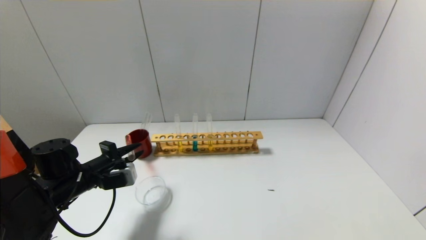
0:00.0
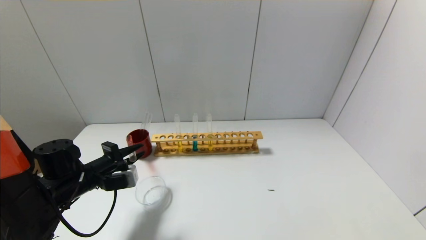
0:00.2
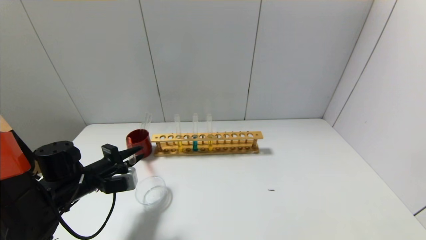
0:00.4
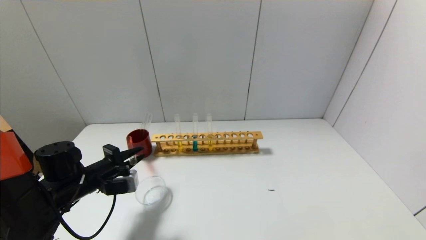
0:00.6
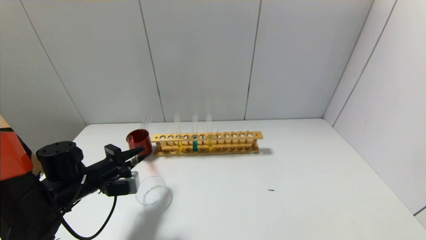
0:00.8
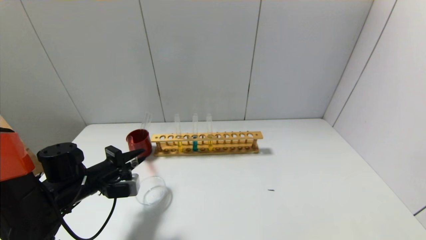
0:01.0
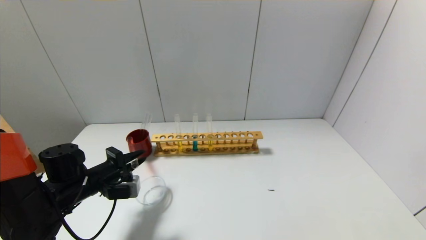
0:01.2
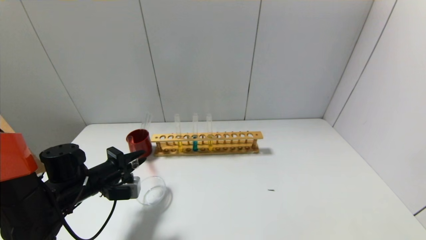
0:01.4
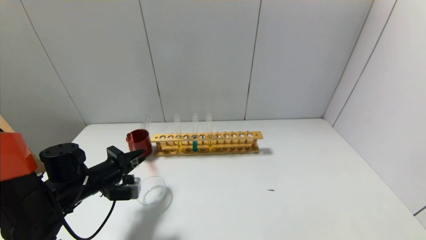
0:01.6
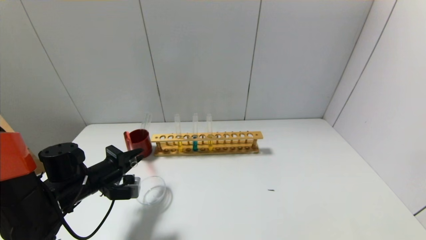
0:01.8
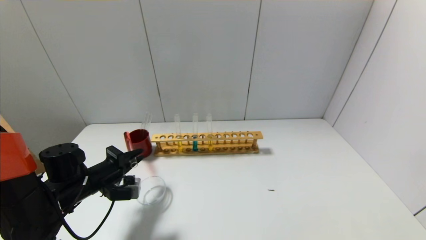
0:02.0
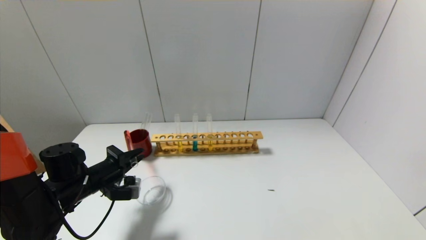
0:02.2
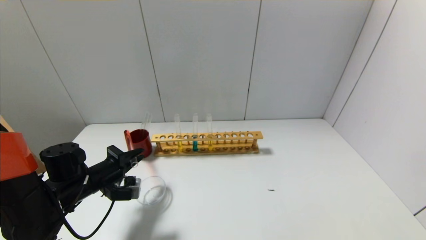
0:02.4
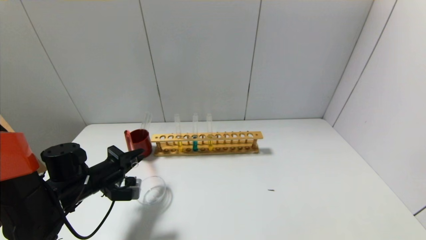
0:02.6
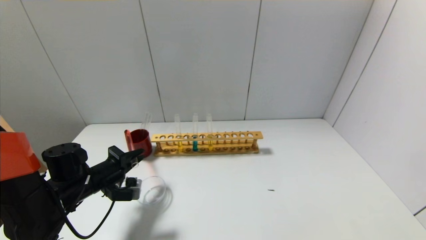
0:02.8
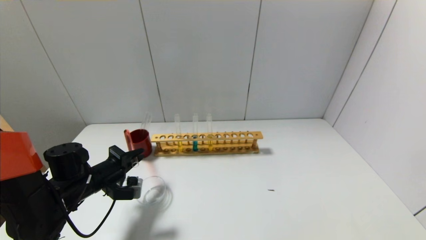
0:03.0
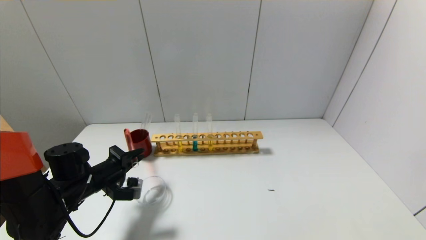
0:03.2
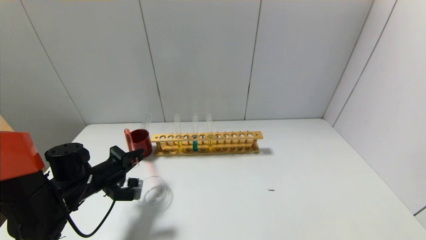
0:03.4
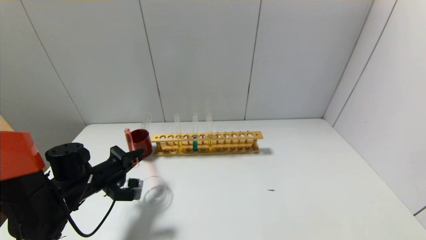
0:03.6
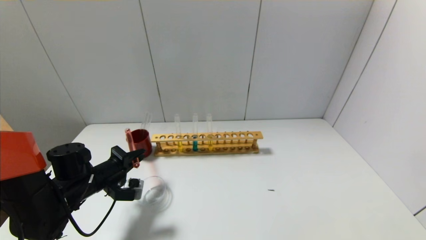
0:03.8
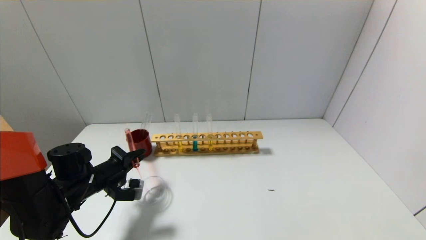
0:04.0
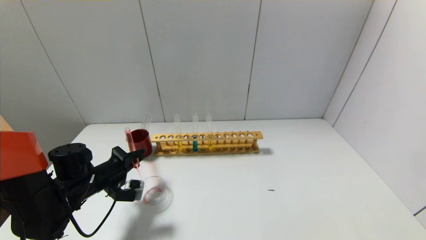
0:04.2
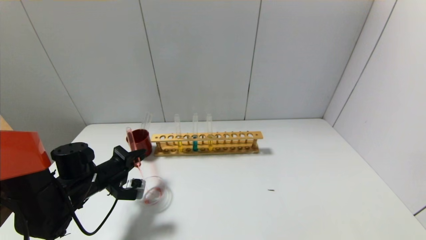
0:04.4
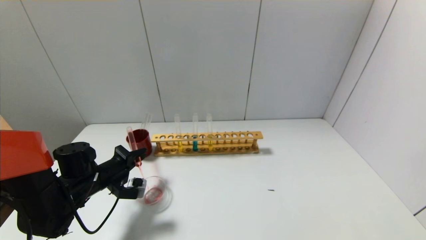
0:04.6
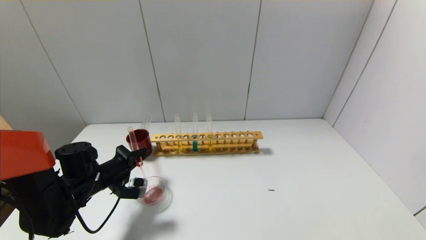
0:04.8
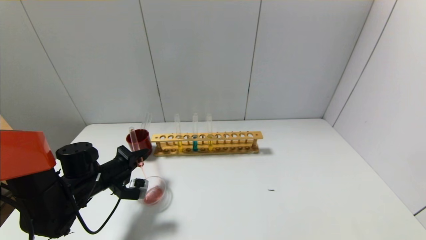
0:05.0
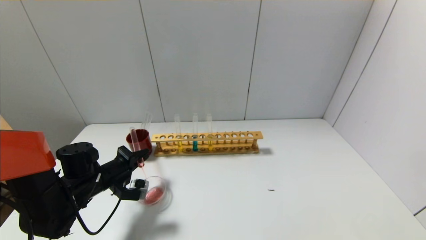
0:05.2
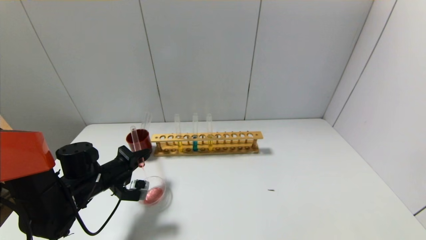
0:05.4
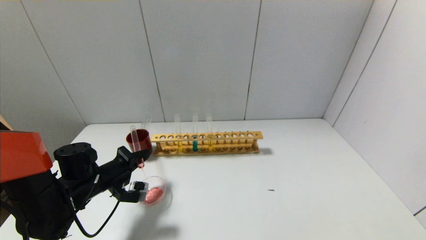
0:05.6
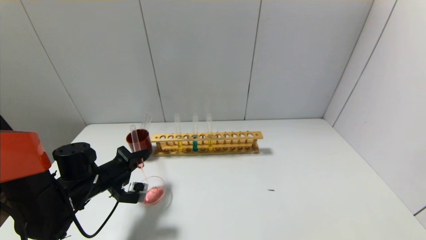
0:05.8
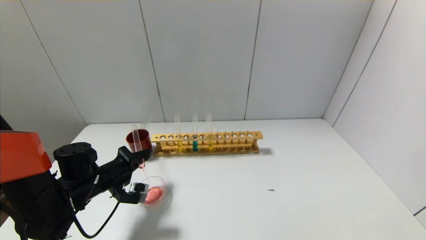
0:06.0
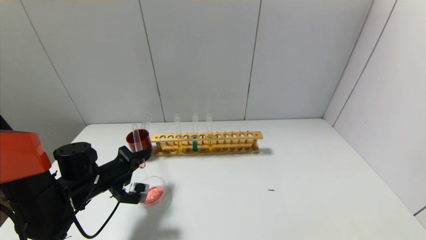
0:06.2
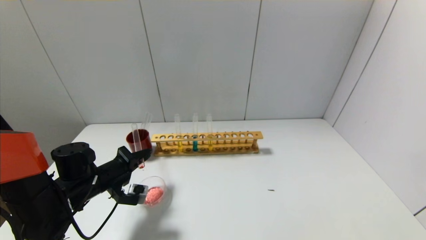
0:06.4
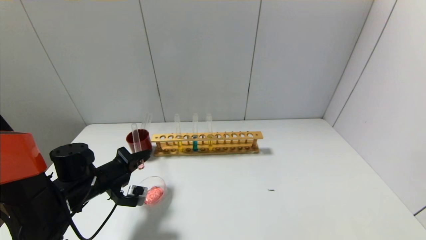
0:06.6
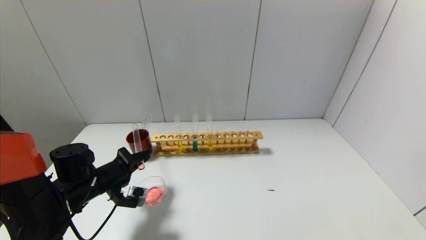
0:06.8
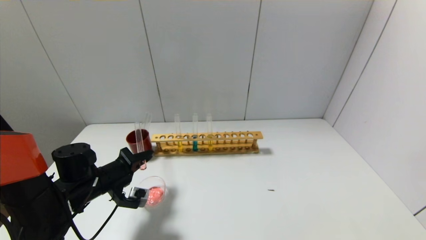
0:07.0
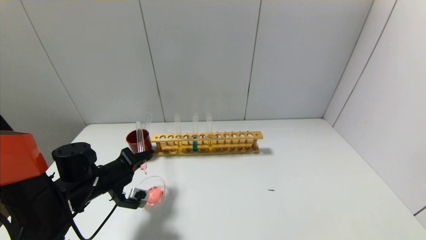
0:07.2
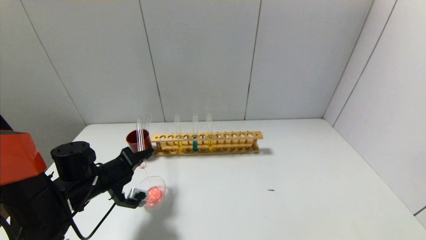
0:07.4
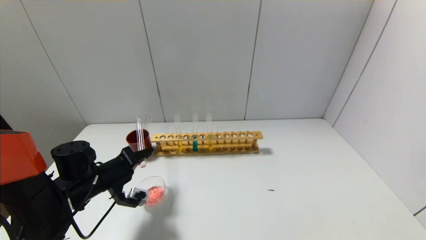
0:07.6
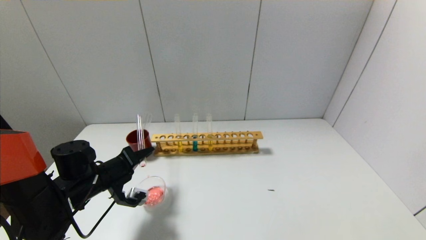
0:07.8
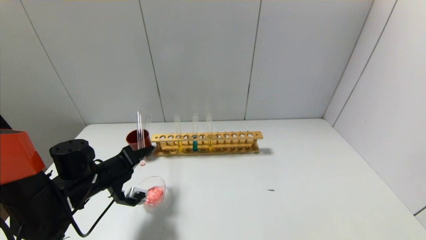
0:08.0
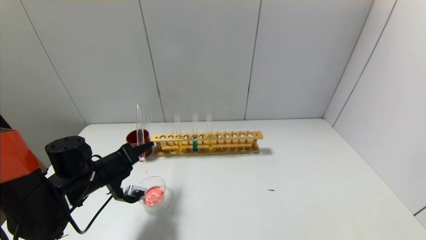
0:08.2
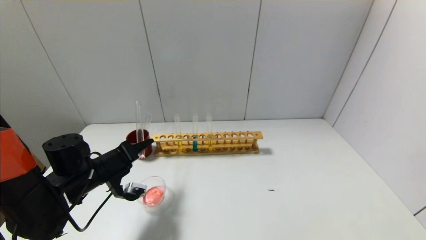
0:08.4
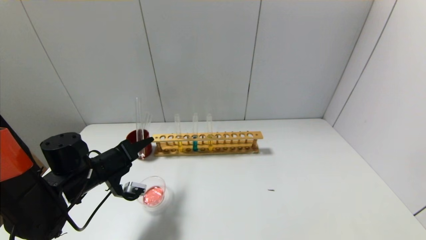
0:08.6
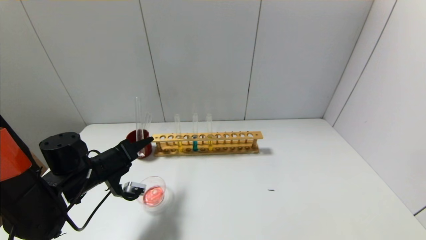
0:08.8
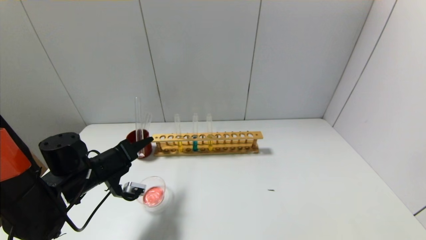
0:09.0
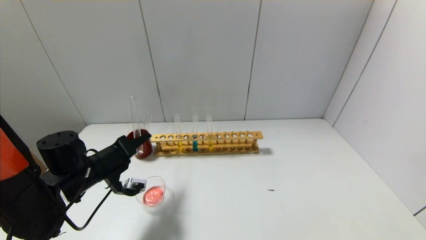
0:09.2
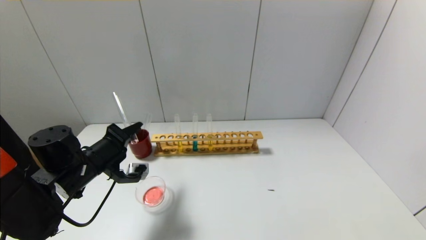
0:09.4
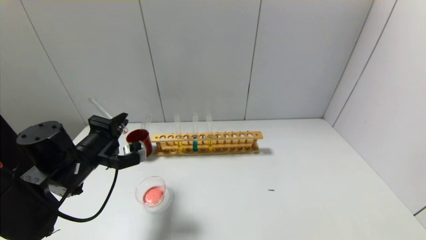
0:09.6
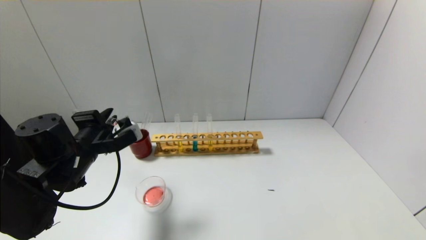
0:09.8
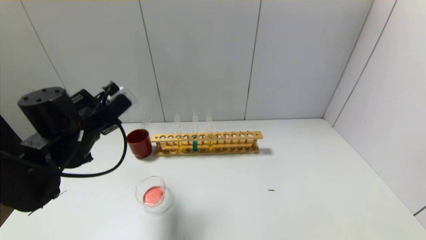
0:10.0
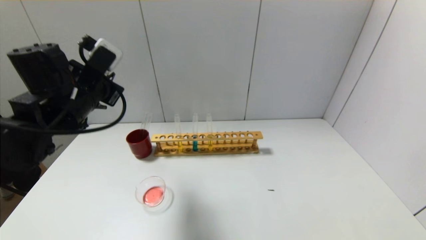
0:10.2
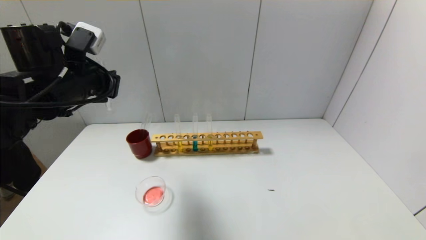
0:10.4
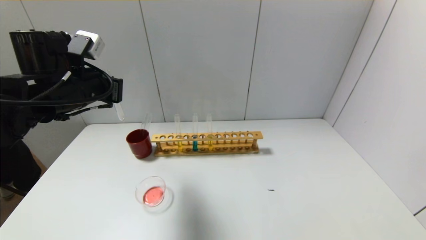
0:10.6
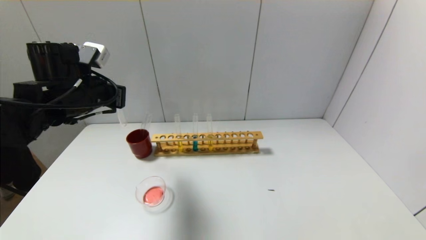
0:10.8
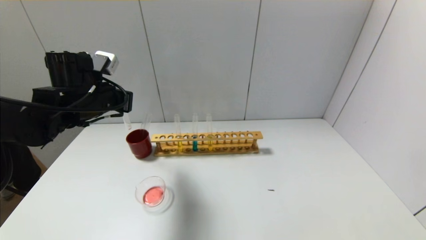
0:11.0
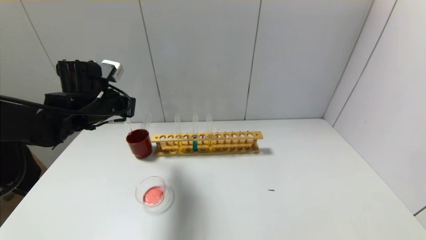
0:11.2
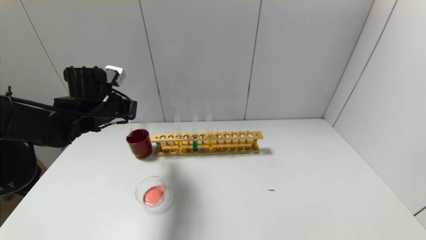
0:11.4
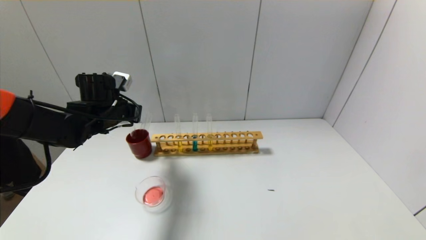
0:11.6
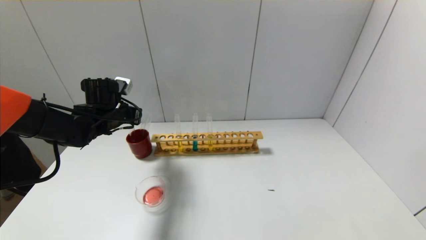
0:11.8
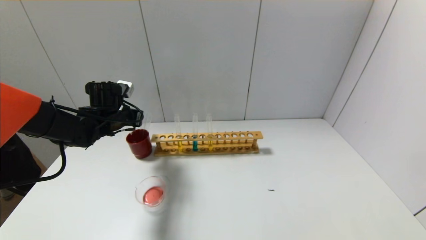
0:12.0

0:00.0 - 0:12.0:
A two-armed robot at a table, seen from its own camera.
Step, 0:00.0 - 0:09.4: Pour the red reagent into the graduated cylinder with the left gripper.
0:00.0 - 0:01.6: The grippers make only small movements.
0:01.6 - 0:04.4: The grippers make only small movements.
0:04.4 - 0:06.0: The two grippers keep their place.
0:06.0 - 0:07.6: The grippers stay close to where they were, moving slightly.
0:07.6 - 0:09.0: There are only small adjustments of the grippers.
0:09.0 - 0:10.4: The left gripper goes some 15 cm upward.
0:10.4 - 0:12.0: The left gripper heads downward and forward, covering some 15 cm.

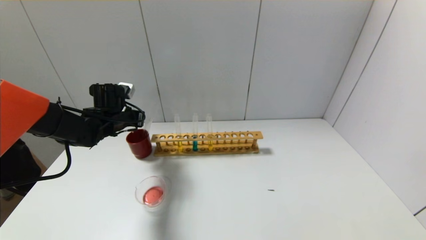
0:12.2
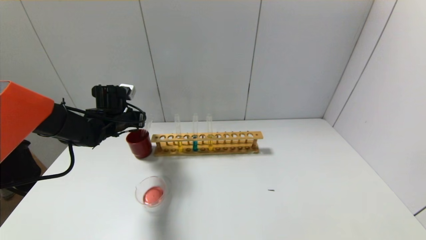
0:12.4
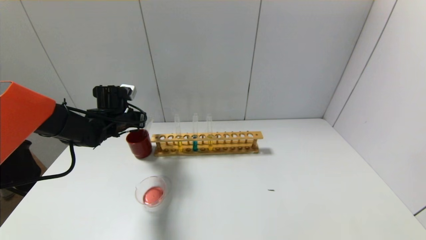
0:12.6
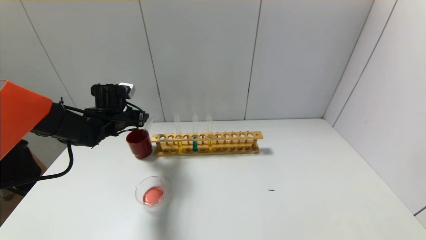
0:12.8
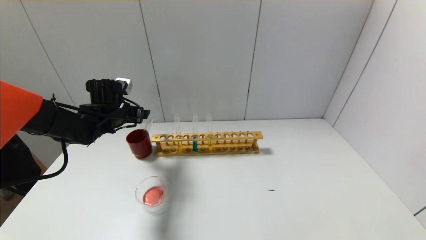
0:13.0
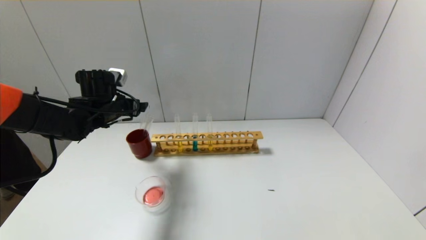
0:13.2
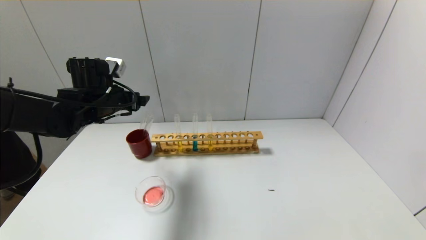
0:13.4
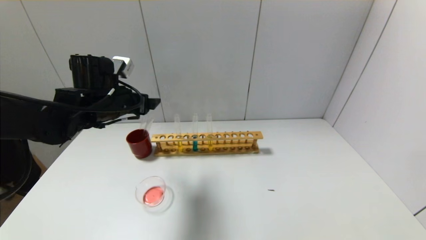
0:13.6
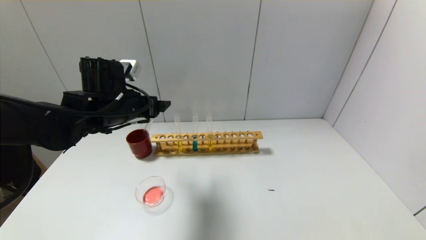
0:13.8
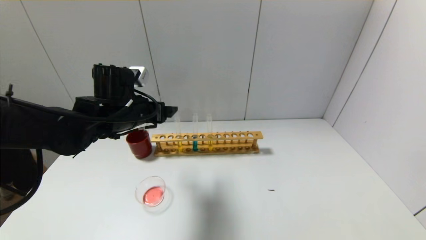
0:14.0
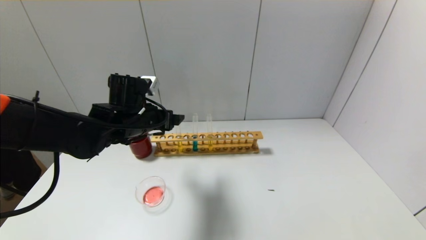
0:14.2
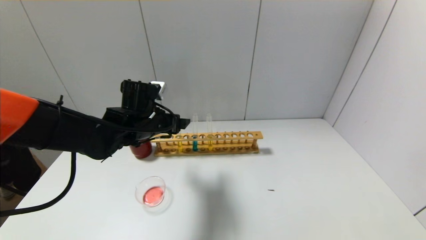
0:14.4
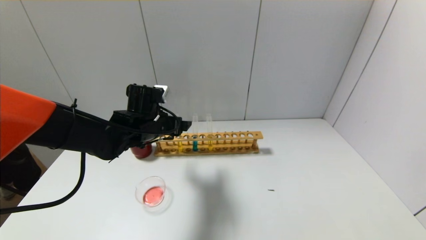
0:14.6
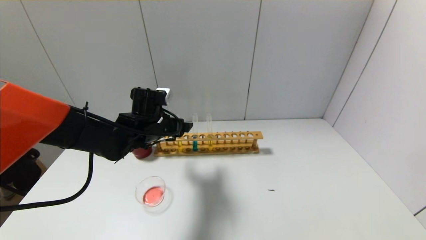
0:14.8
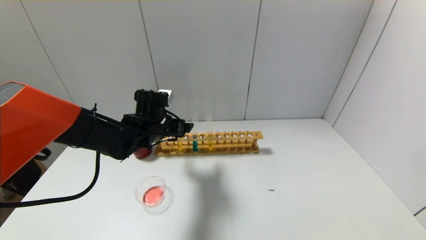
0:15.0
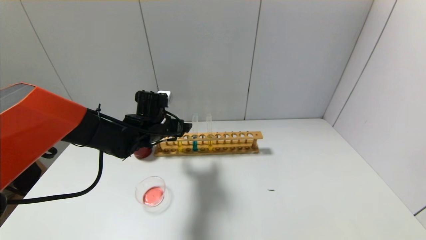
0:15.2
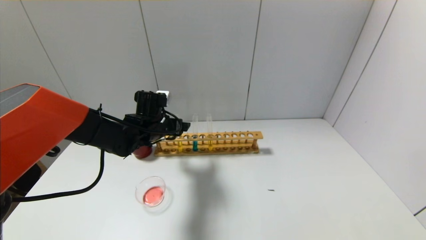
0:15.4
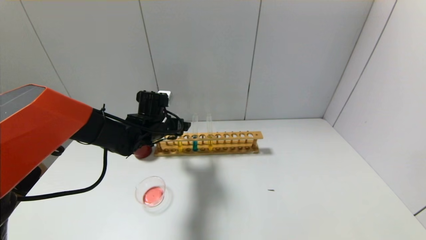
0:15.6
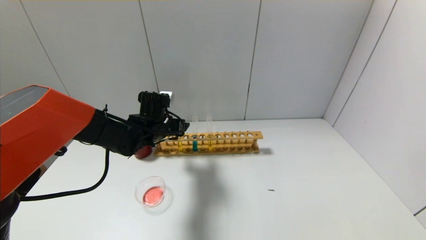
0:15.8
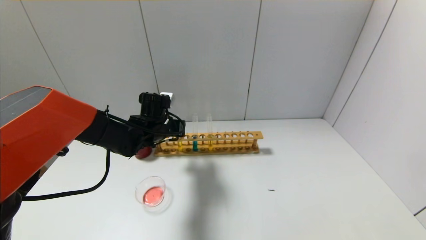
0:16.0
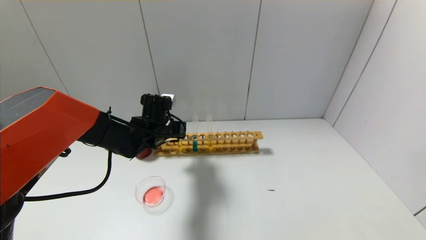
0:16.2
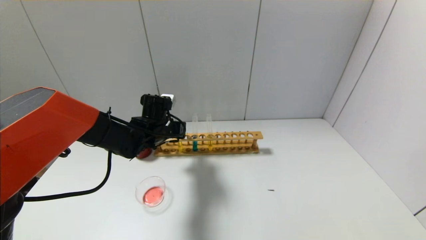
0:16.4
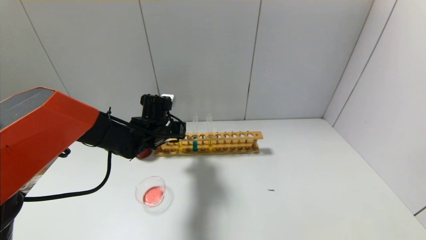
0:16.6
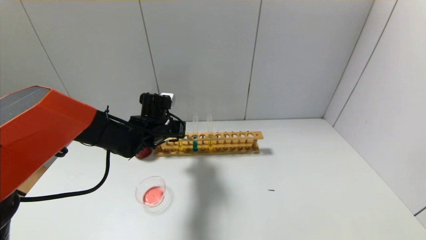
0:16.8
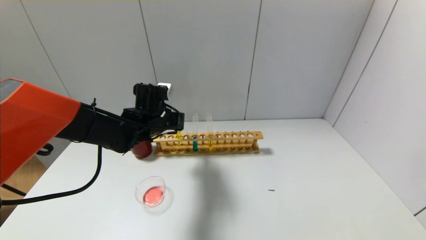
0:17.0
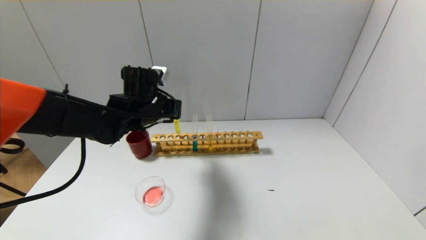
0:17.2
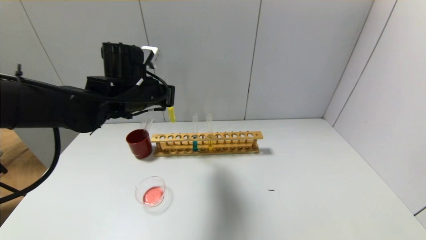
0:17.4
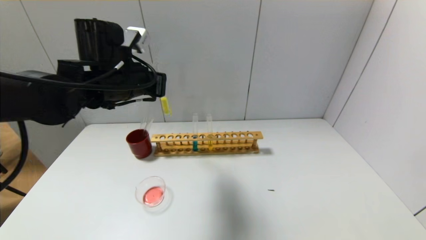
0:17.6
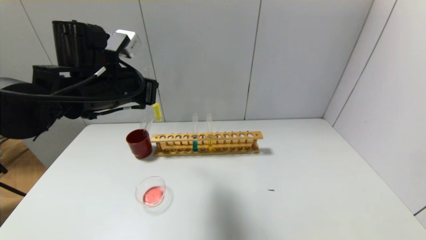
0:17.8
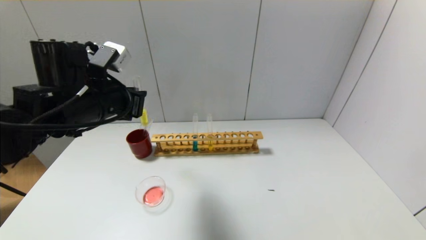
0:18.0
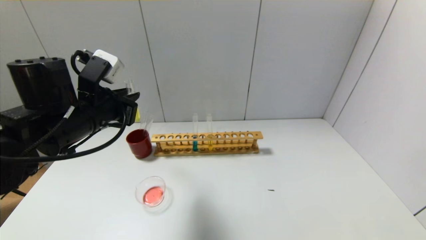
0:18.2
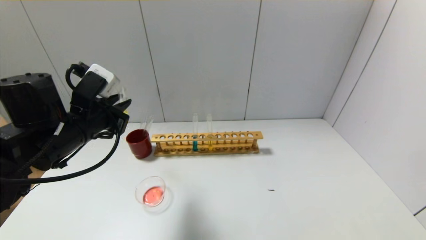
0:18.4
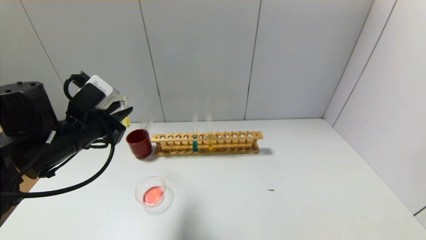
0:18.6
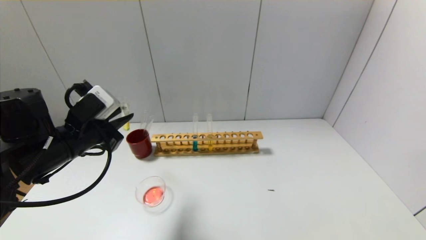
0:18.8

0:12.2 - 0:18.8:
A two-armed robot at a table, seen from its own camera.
Step, 0:12.6 - 0:16.2: Grasp the yellow reagent with the left gripper.
0:12.2 - 0:13.8: The left gripper travels backward, upward and to the right by about 15 cm, and opens its fingers.
0:13.8 - 0:15.4: The left gripper heads downward and forward, covering some 10 cm.
0:15.4 - 0:17.2: The left gripper shifts some 5 cm upward, and closes its fingers.
0:17.2 - 0:18.8: The left gripper moves backward and to the left, about 15 cm.
